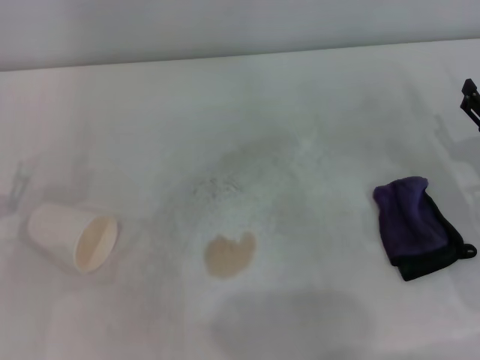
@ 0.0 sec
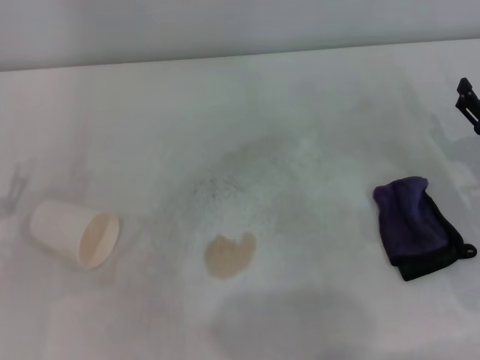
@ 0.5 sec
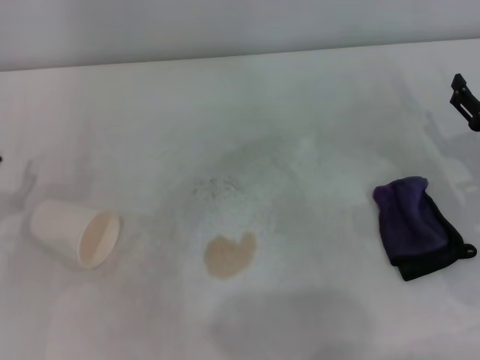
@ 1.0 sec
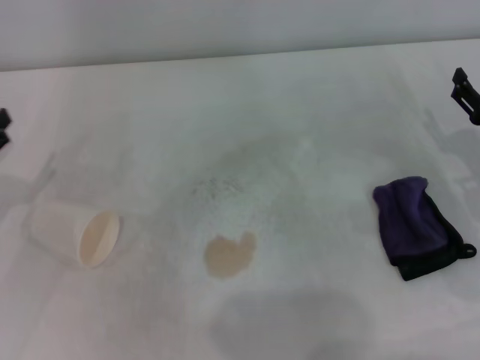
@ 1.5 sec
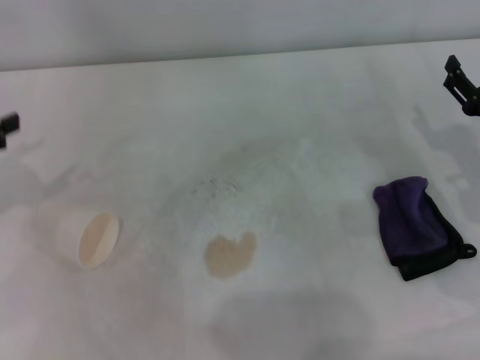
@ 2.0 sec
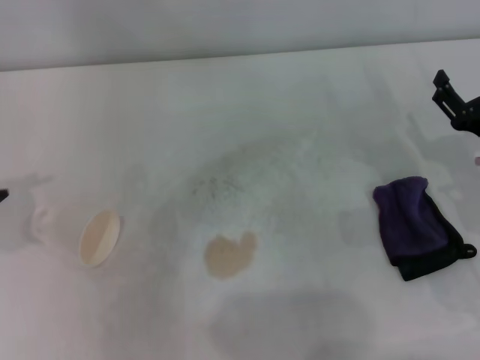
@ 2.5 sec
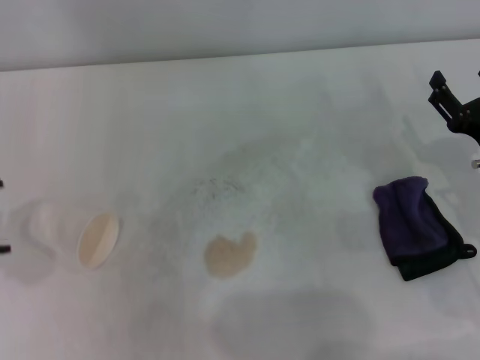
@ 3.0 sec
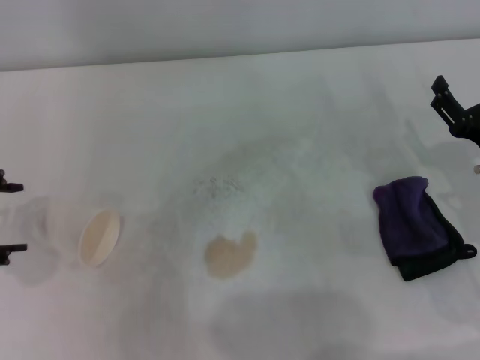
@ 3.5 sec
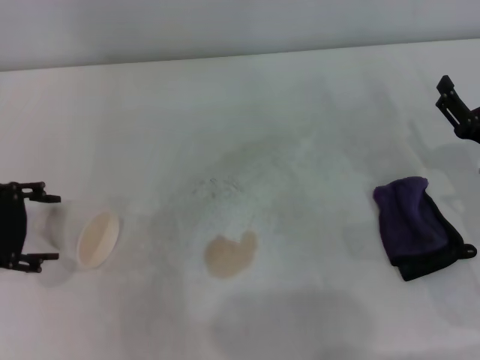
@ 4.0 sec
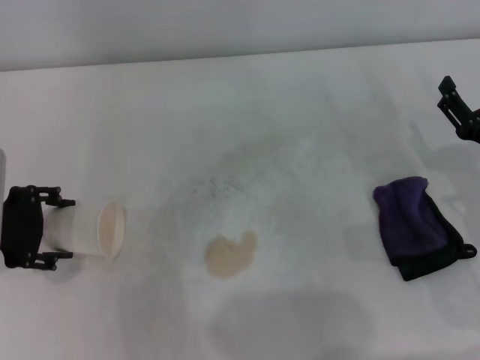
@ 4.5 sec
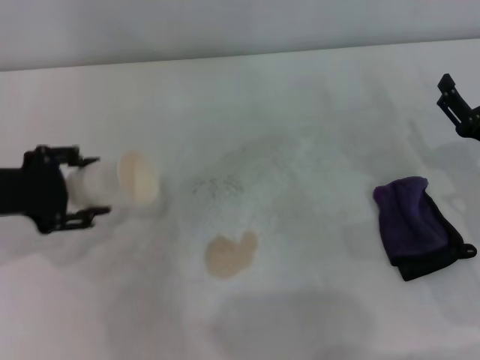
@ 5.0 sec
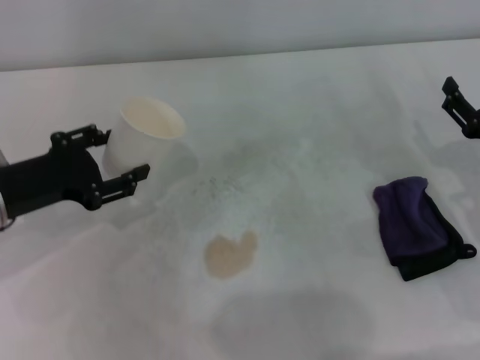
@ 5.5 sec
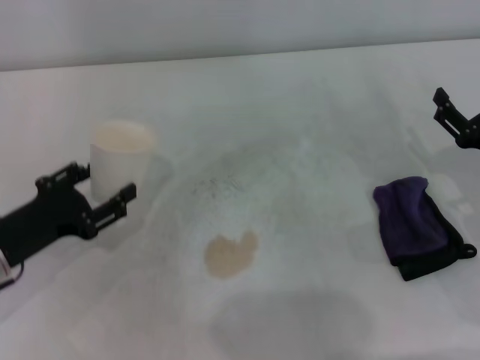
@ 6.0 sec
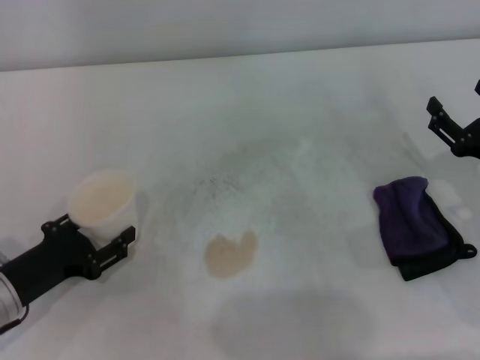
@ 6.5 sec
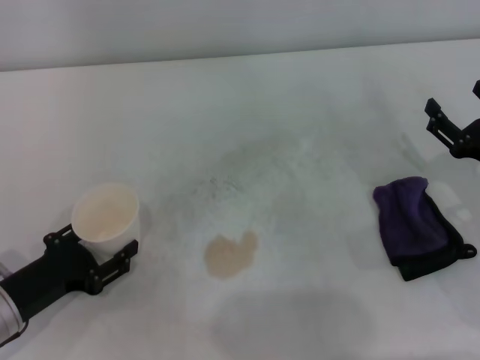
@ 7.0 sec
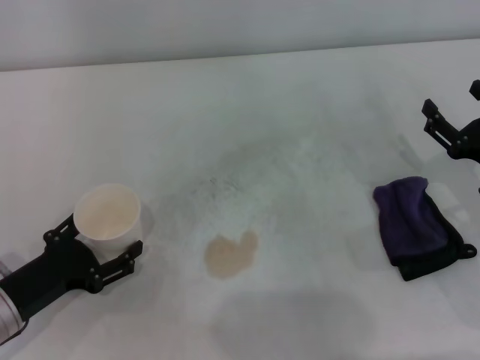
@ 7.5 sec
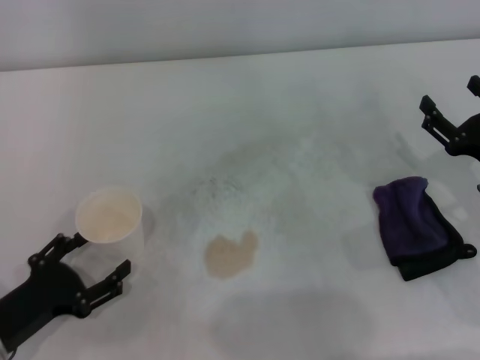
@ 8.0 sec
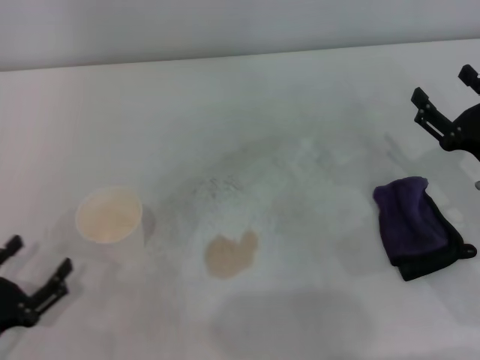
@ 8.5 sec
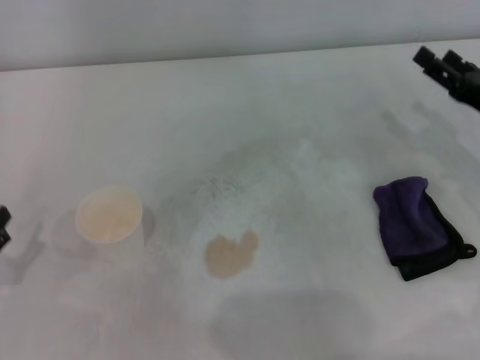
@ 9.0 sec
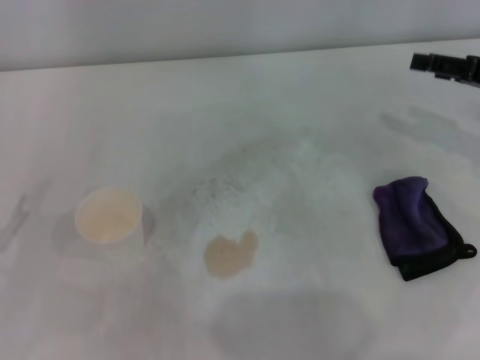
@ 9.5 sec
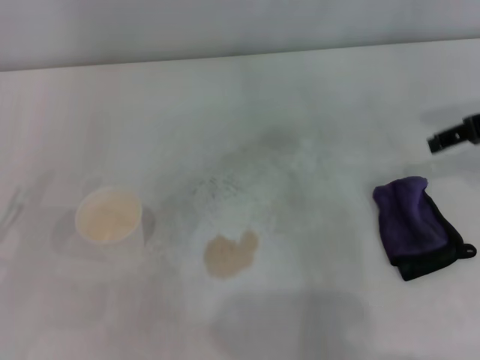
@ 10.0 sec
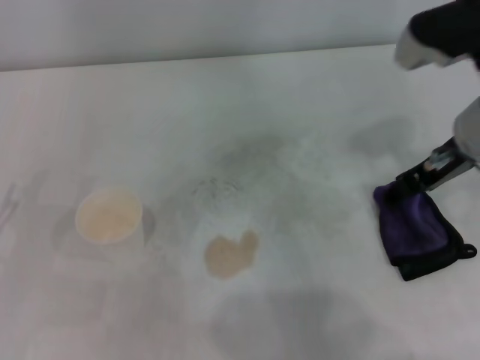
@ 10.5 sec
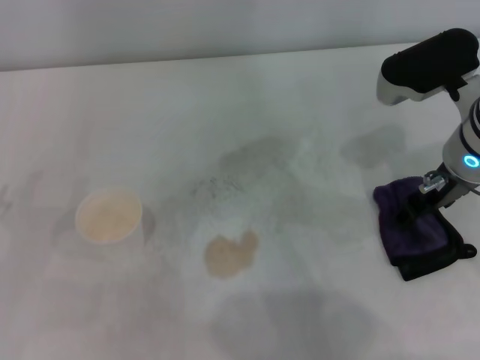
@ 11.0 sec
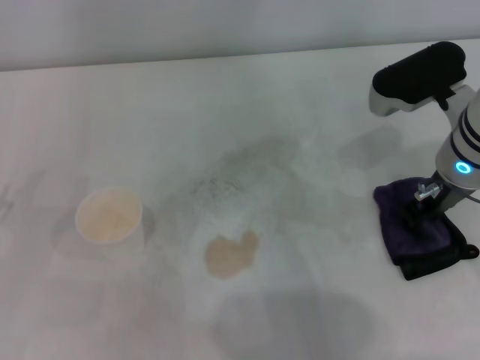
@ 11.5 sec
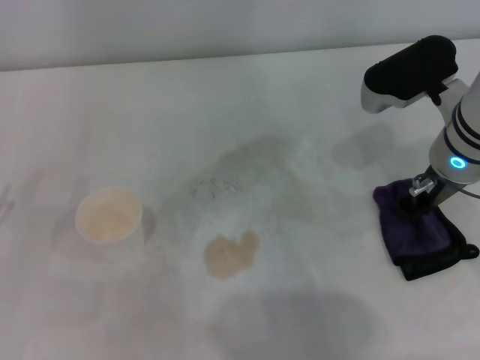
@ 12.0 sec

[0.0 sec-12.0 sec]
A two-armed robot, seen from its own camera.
Step, 0.0 sec to 4.5 sec: Grasp the paper cup with the left gripper.
Step, 5.0 sec to 7.5 sec: Stand the paper cup upright with the left gripper.
2.0 sec to 4.0 sec: The left gripper travels to the right by approximately 5 cm, and reaches some 5 cm upward, then returns.
4.0 sec to 6.0 sec: The left gripper is displaced downward by roughly 10 cm, and closes.
6.0 sec to 8.0 sec: The left gripper goes approximately 5 cm backward, and opens up.
8.0 sec to 10.0 sec: The left gripper moves to the left, some 5 cm, while the right gripper goes about 20 cm upward and forward.
10.0 sec to 12.0 sec: The right gripper is displaced to the left and downward by some 10 cm, and closes up.

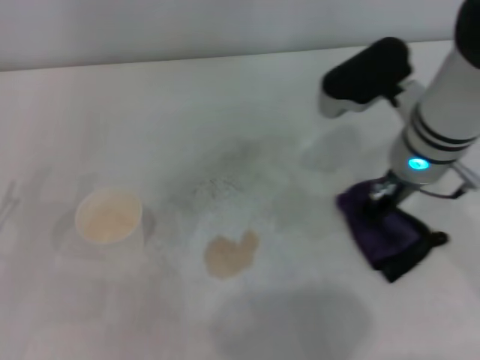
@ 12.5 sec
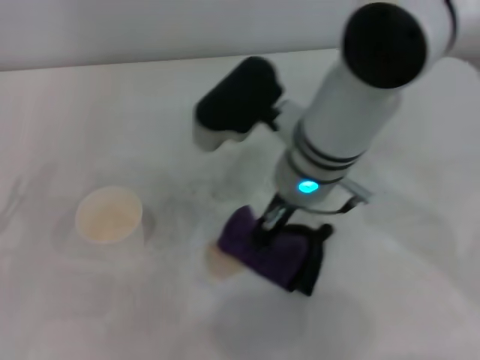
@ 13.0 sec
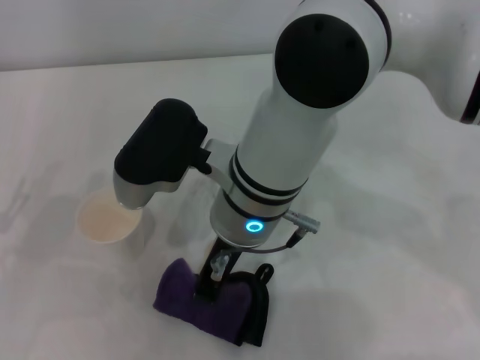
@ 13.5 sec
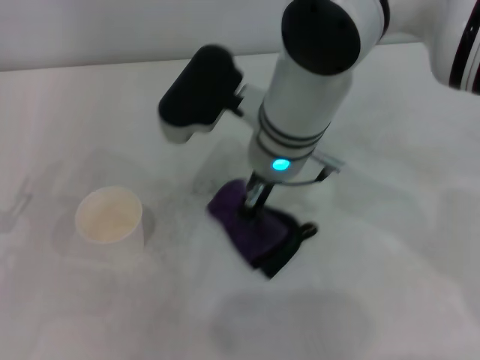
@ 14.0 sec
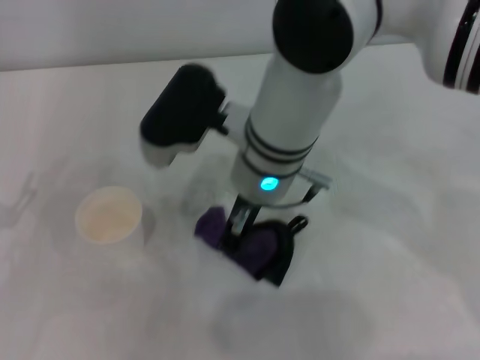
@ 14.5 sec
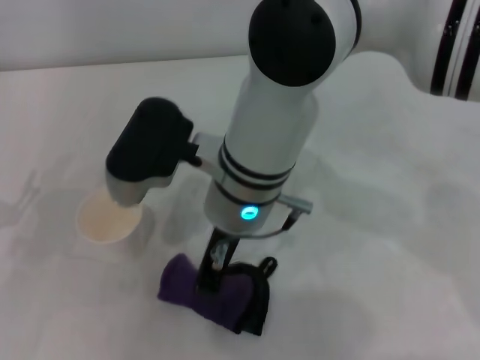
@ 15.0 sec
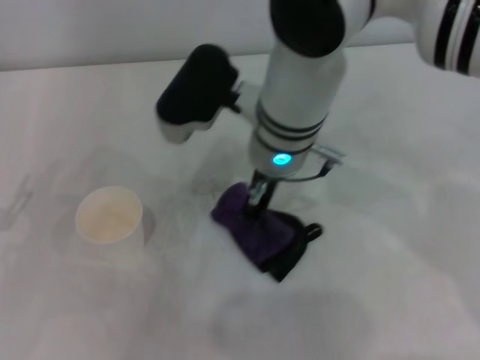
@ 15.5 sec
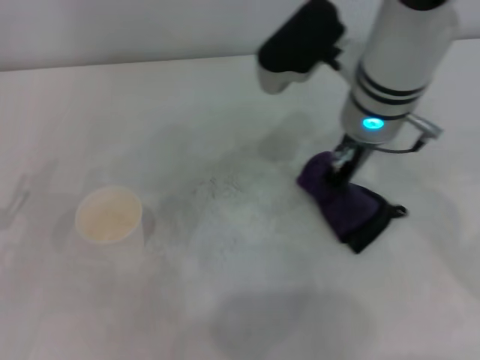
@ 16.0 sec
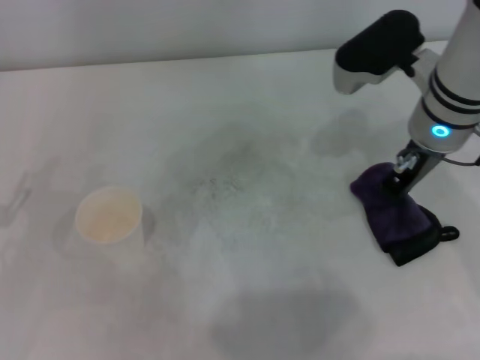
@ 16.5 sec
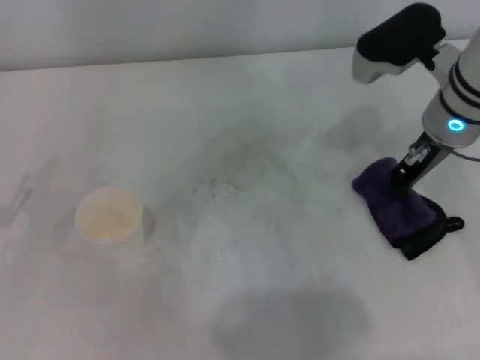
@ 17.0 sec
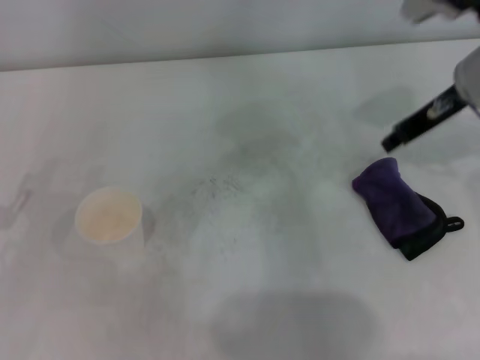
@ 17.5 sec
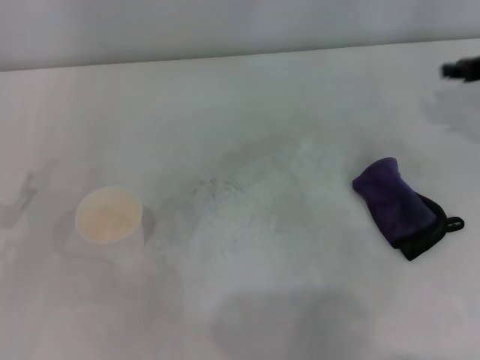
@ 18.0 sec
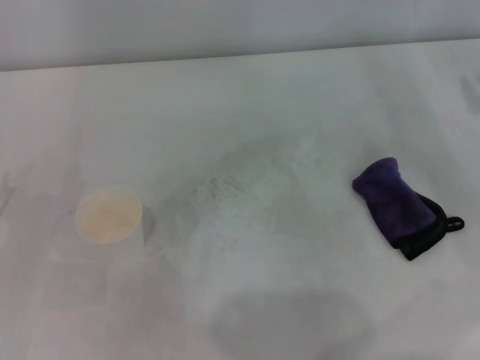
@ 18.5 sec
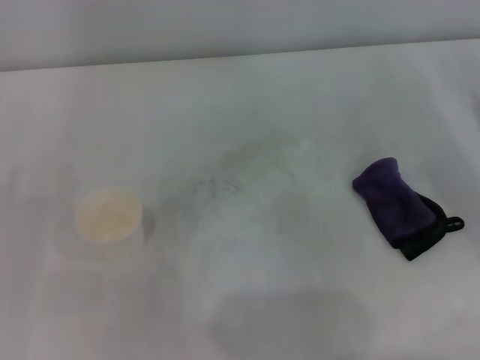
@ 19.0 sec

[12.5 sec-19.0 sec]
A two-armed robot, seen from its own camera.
Step, 12.5 sec to 16.0 sec: Wipe the stains off the table with the right gripper.
12.5 sec to 14.5 sec: The right gripper travels to the left by some 15 cm.
14.5 sec to 17.0 sec: The right gripper goes about 20 cm to the right.
17.0 sec to 19.0 sec: The right gripper travels to the right by some 20 cm.

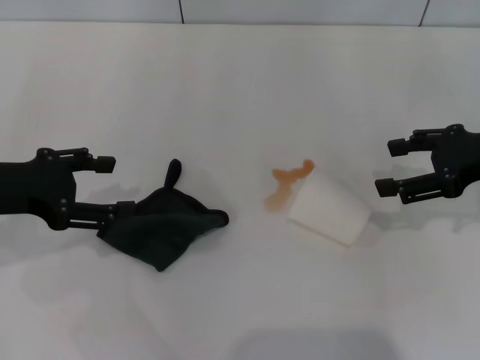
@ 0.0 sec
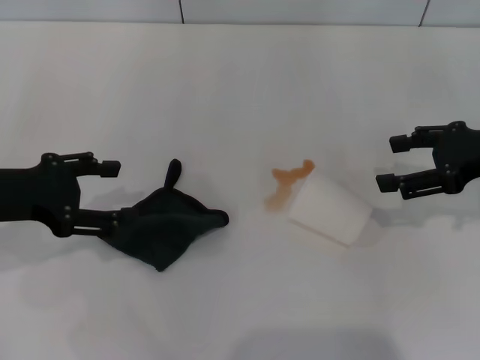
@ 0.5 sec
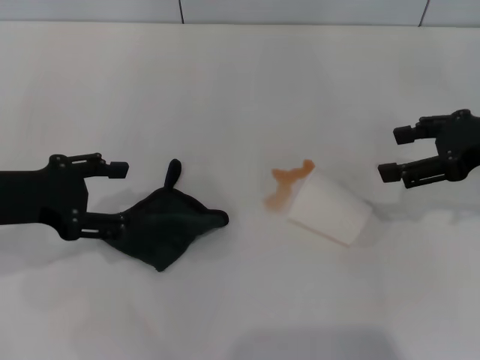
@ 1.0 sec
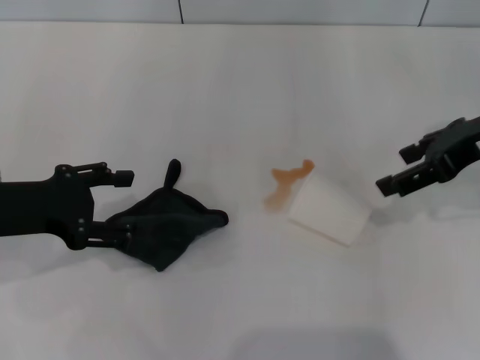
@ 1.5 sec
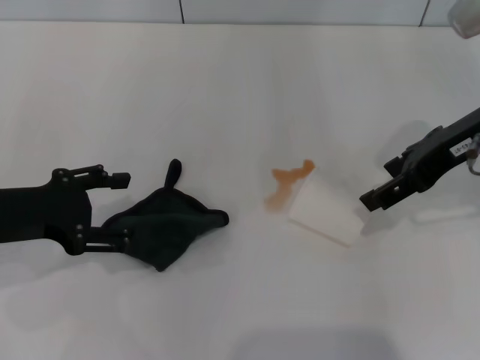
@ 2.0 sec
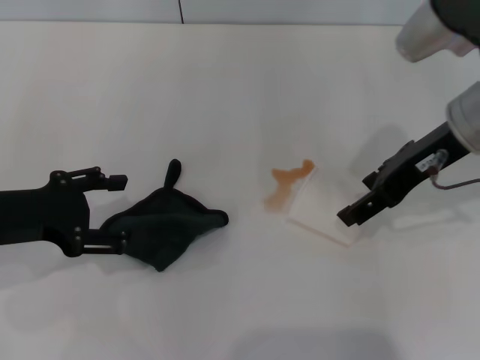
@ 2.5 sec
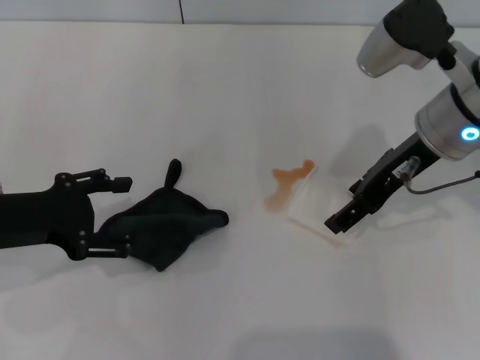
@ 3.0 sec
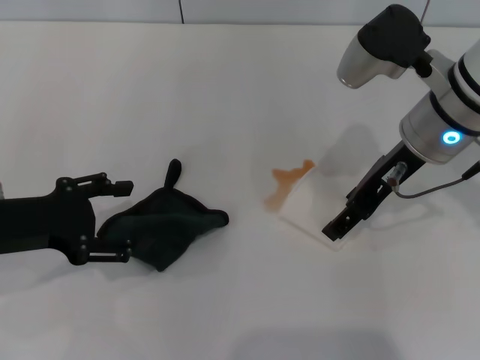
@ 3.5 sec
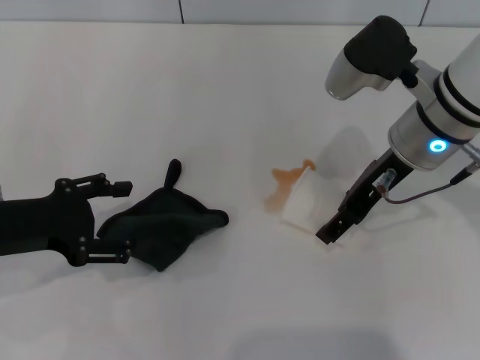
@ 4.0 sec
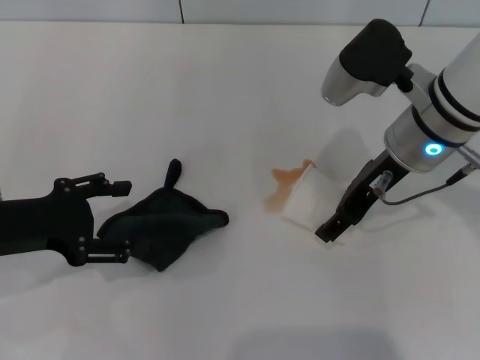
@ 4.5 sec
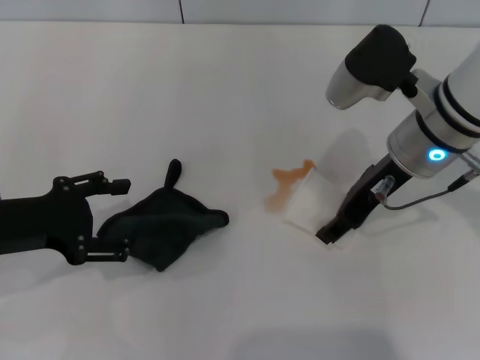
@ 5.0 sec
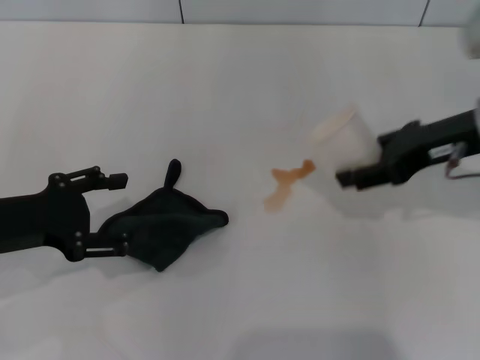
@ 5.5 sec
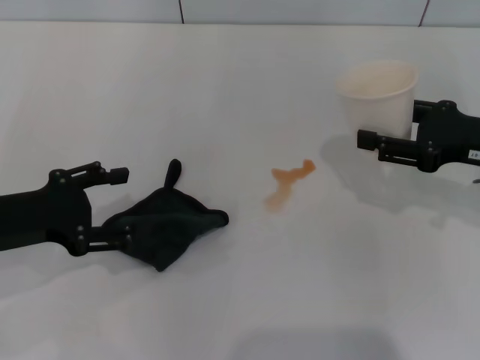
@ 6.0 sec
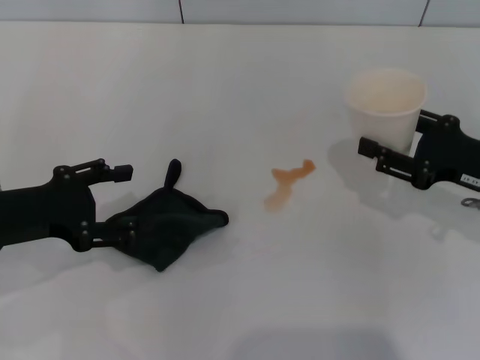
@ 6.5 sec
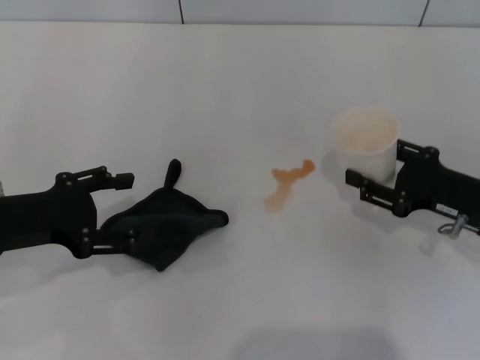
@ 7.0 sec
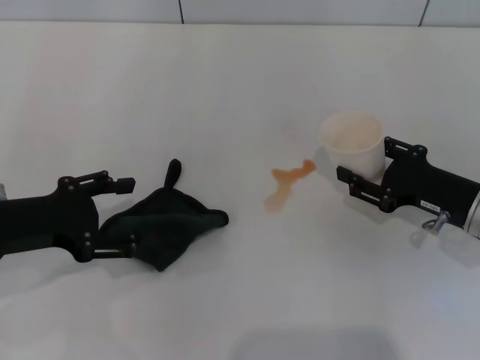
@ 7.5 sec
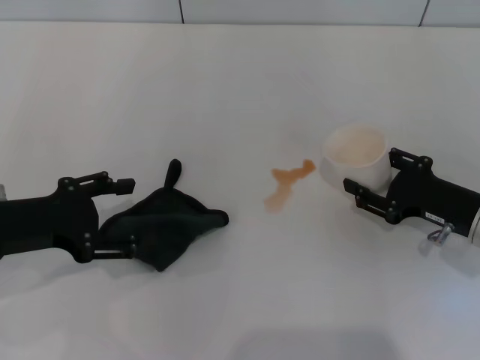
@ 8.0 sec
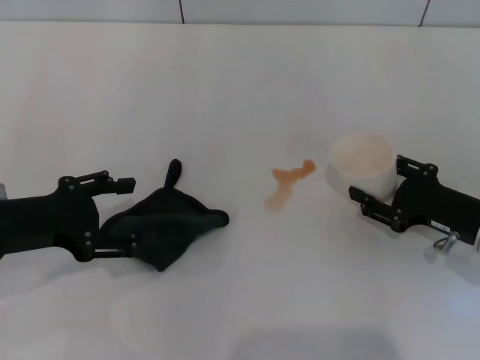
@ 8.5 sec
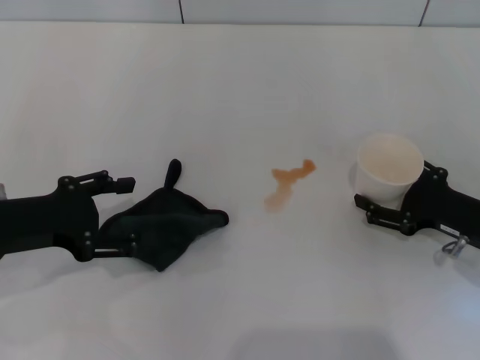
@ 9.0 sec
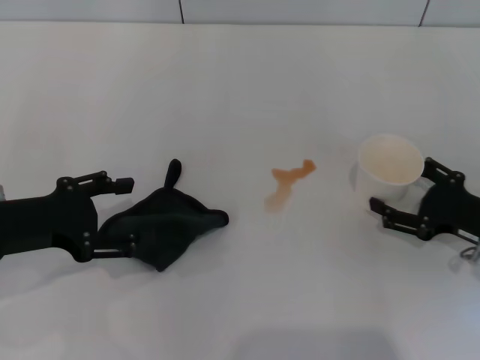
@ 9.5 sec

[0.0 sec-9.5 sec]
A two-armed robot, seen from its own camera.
Step, 0.0 sec to 4.5 sec: Grasp the paper cup with the right gripper.
0.0 sec to 2.0 sec: The right gripper moves to the left and upward, approximately 10 cm.
2.0 sec to 4.0 sec: The right gripper goes some 10 cm to the left and downward.
4.0 sec to 5.5 sec: The right gripper heads to the right, covering roughly 10 cm, and closes up.
5.5 sec to 7.5 sec: The right gripper moves downward, about 15 cm.
7.5 sec to 9.5 sec: The right gripper opens up.
